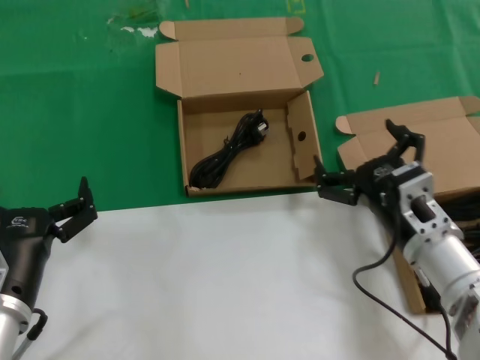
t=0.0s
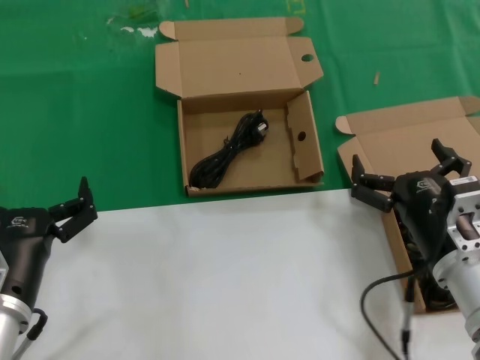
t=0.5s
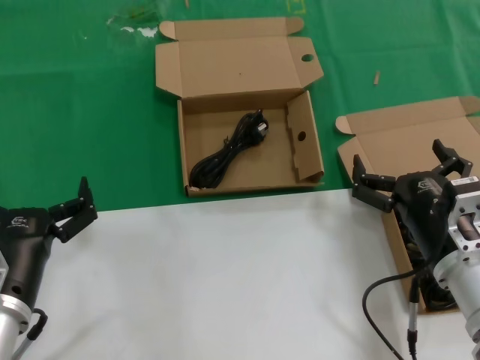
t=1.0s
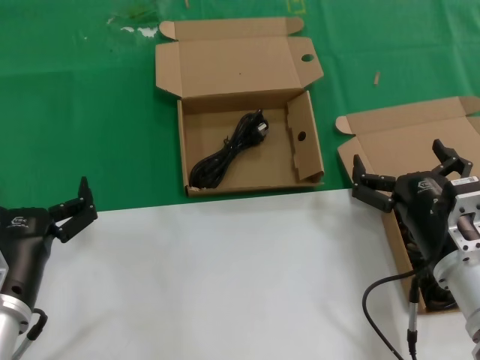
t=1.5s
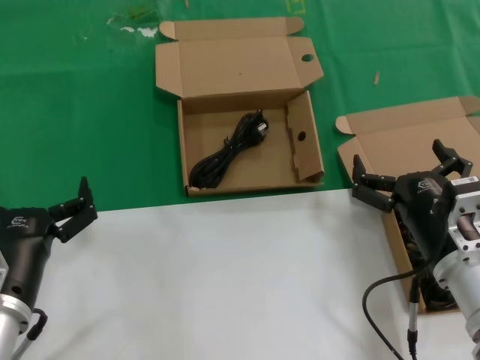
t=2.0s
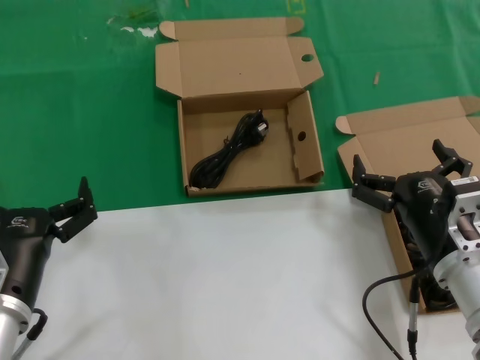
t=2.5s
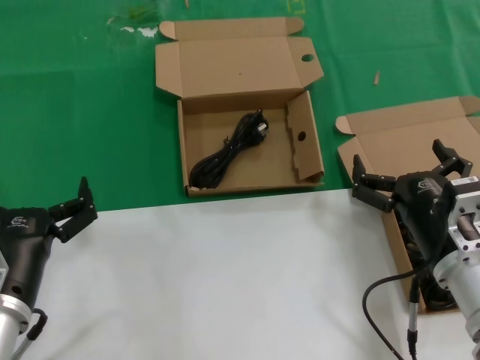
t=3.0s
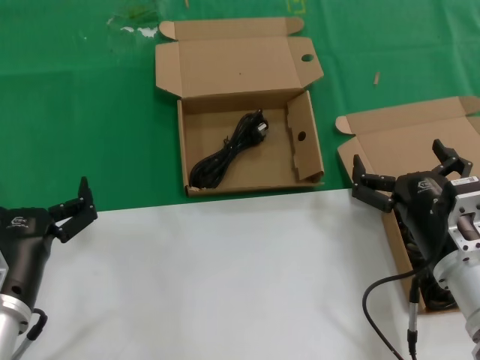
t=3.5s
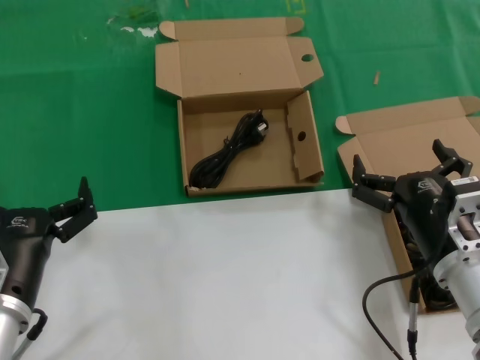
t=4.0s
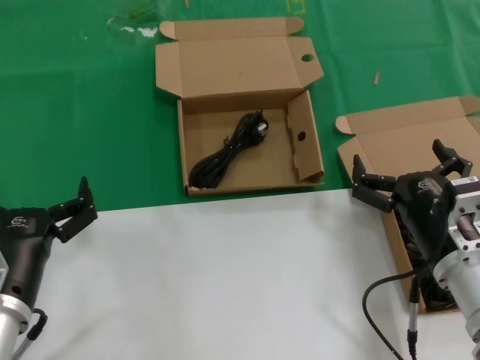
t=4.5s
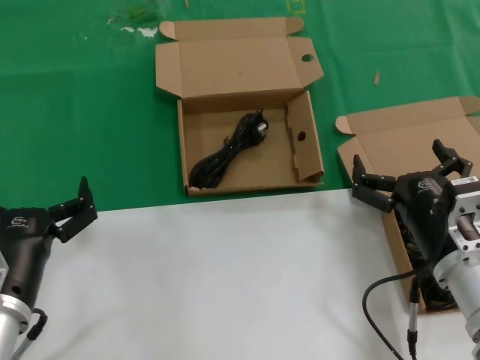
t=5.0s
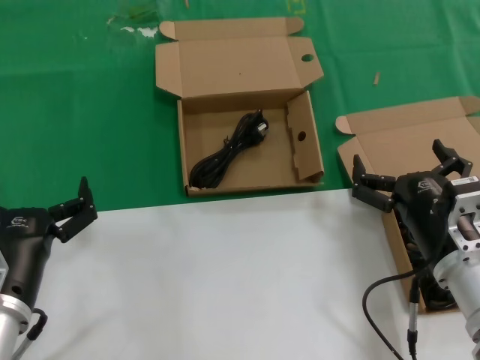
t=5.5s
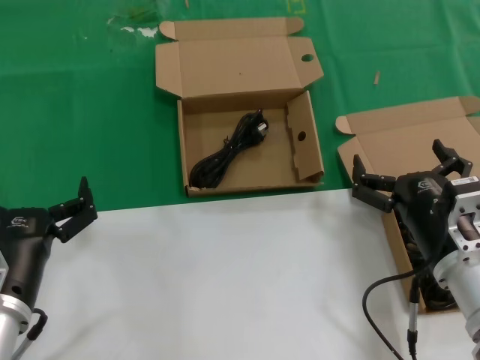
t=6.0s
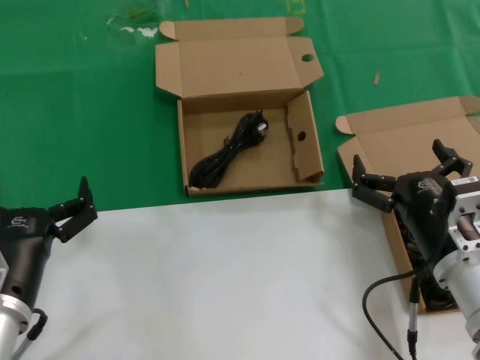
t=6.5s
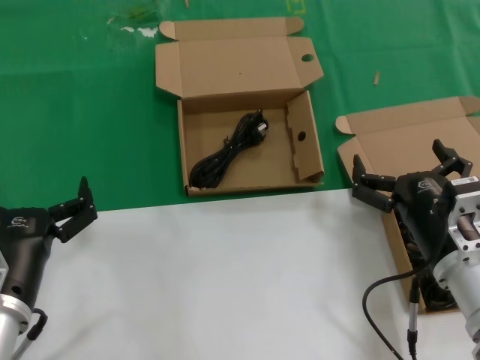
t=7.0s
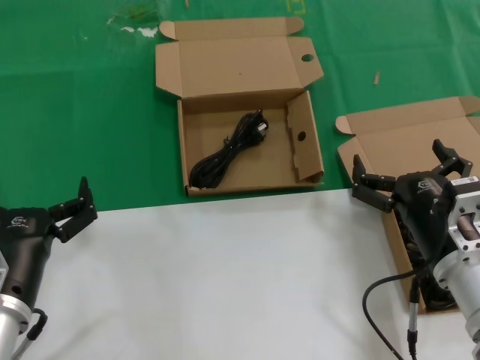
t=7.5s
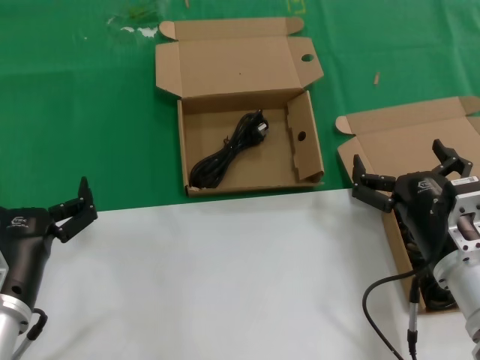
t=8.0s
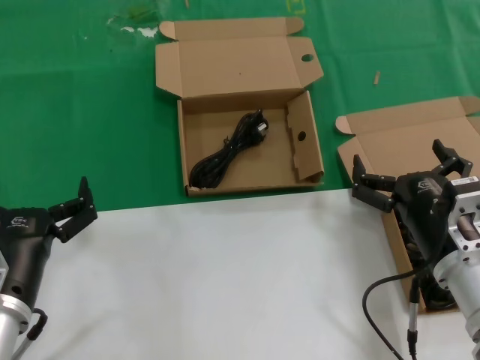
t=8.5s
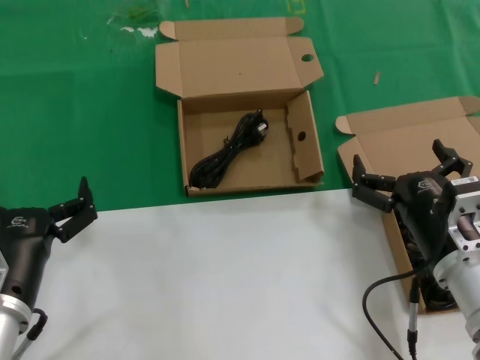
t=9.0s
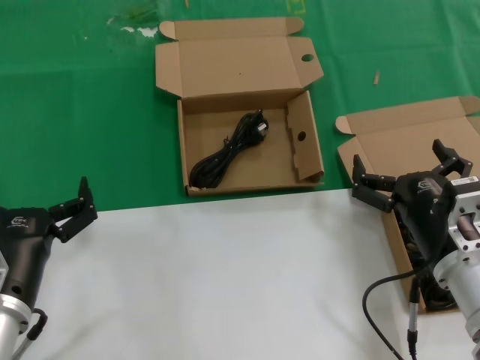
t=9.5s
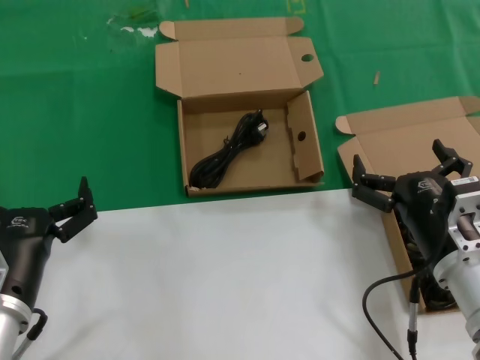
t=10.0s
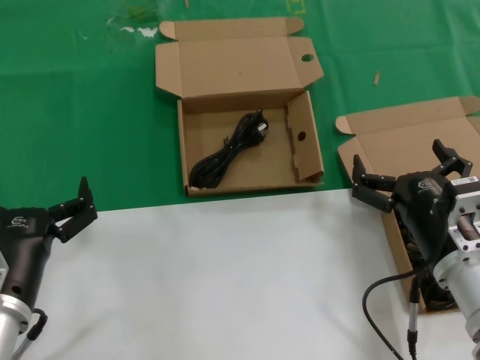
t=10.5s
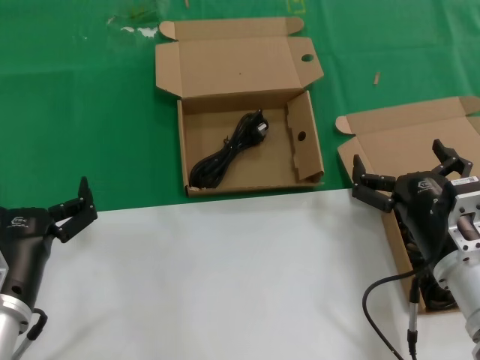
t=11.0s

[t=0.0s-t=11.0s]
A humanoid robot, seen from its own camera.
Task of the whole recording: take the parts from the box containing them and put them into an empty box.
t=0.0s to t=2.0s: There are only small adjustments of the hands.
t=2.0s to t=11.0s: Neither hand changes place.

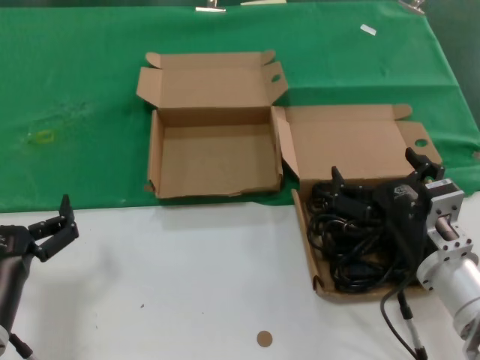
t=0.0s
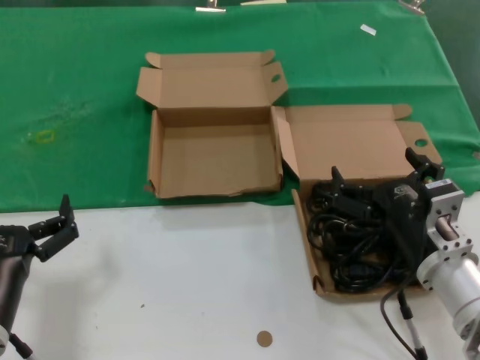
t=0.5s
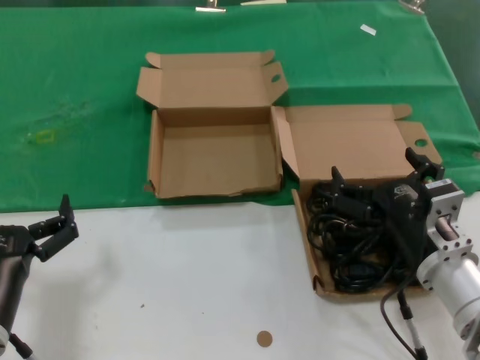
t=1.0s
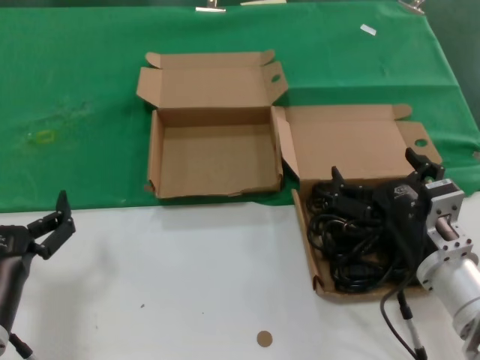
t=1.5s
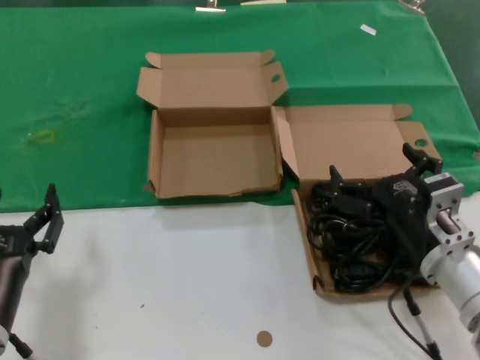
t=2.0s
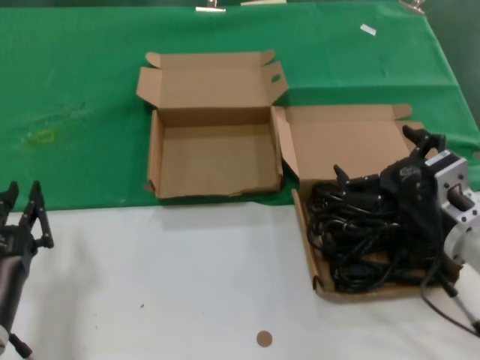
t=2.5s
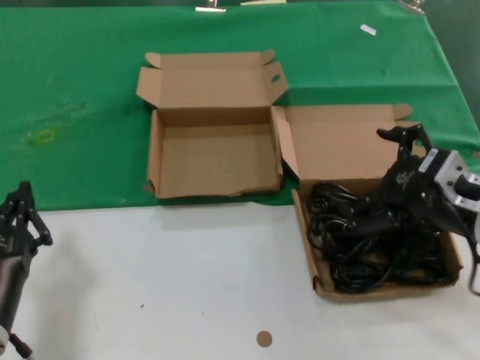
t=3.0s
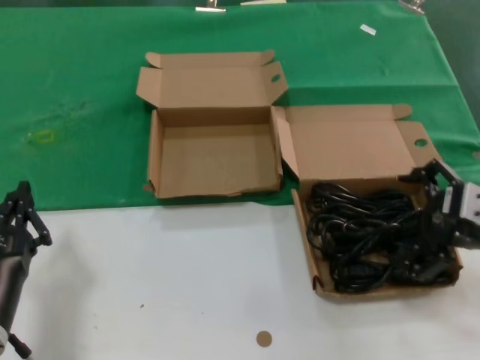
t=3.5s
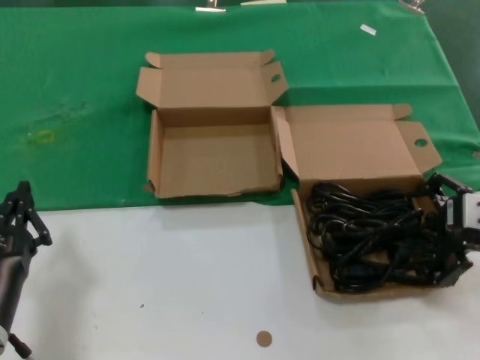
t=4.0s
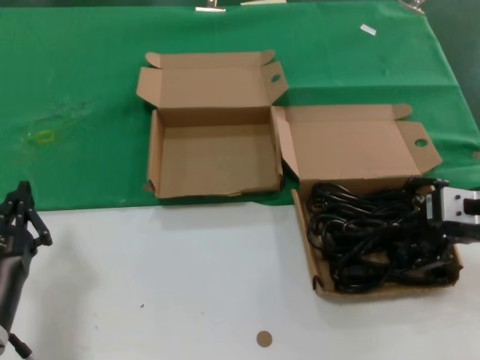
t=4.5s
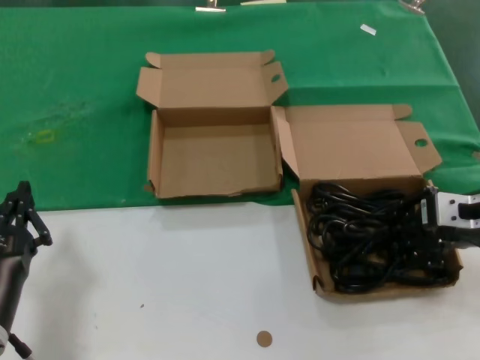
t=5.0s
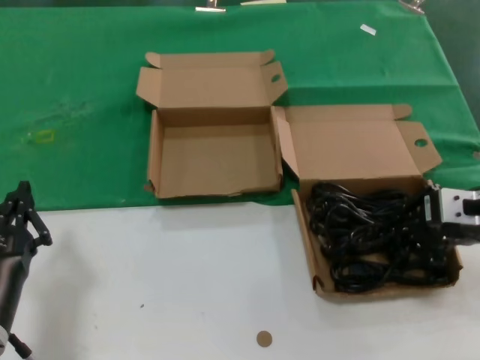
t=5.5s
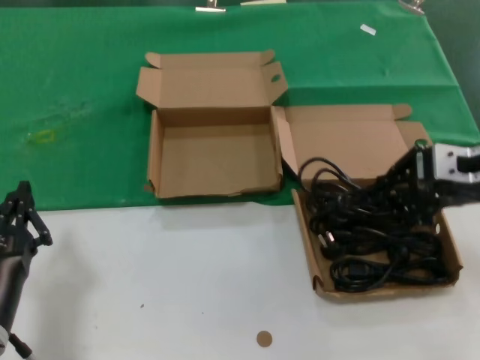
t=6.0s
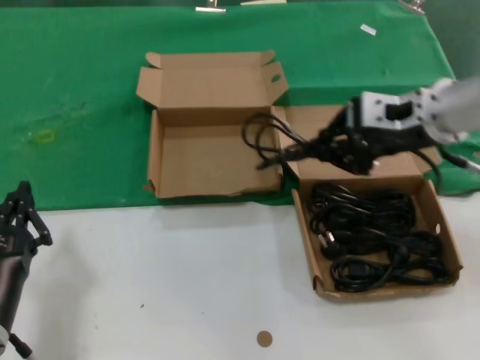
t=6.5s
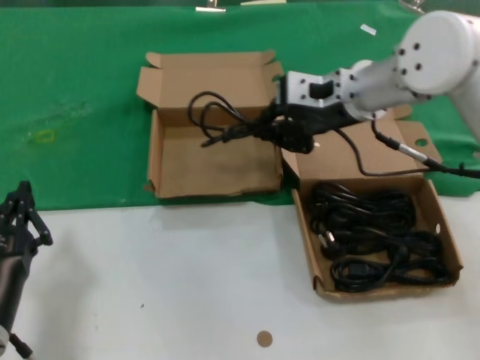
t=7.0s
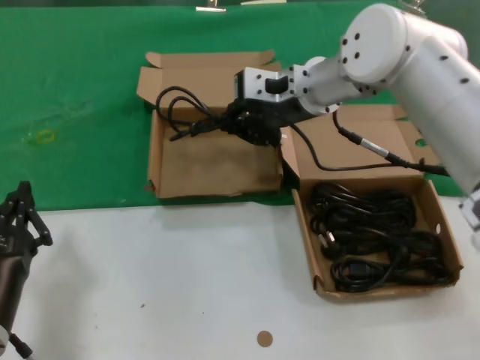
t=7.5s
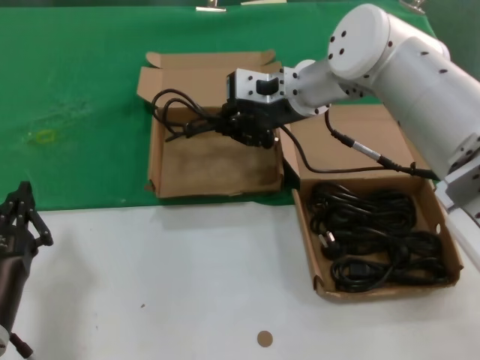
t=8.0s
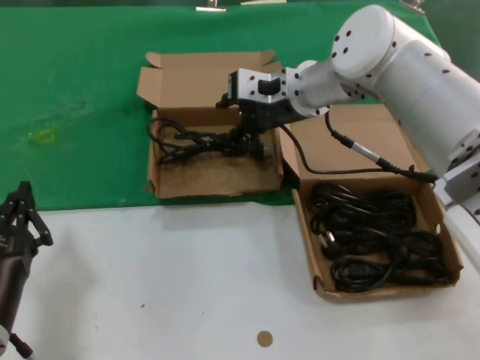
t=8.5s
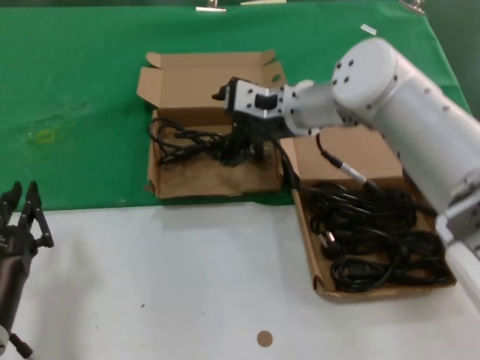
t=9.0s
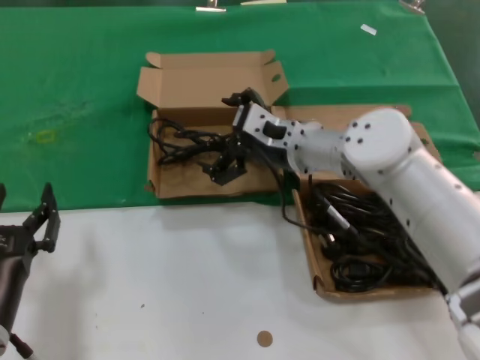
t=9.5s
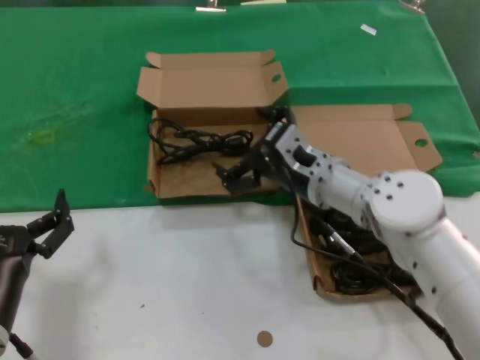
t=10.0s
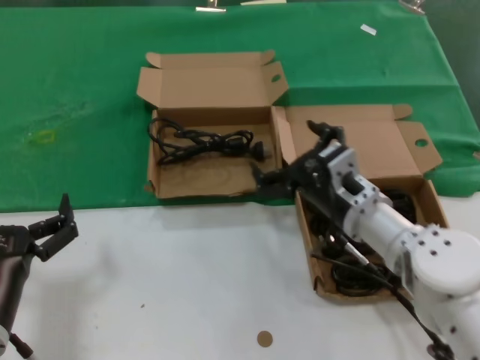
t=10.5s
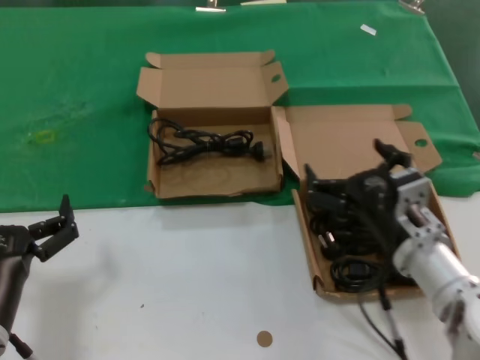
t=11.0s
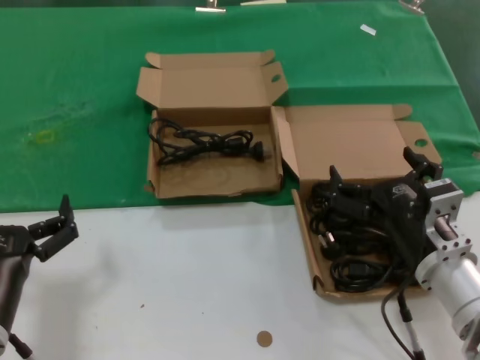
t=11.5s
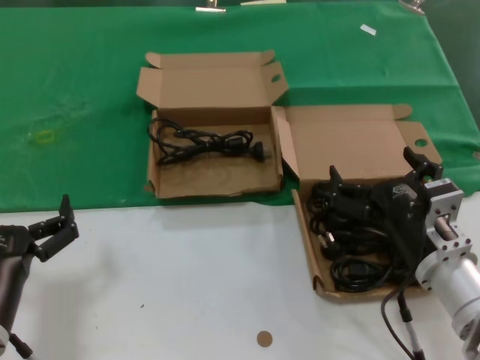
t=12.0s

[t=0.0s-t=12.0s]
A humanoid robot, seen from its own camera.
Task of the whole recording: take the parts from the box containing them and put them into an empty box.
Step, t=0.0s to t=5.0s: Grasp the data cable.
Step, t=5.5s to t=8.0s: Place the data cable in the another box.
t=0.0s to t=2.0s: Neither hand changes place.
t=2.0s to t=4.0s: The right hand moves upward and to the right, roughly 15 cm.
t=4.0s to t=6.0s: The right hand shifts some 5 cm upward.
t=6.0s to t=8.0s: The right hand shifts roughly 25 cm to the left and forward.
t=8.0s to t=10.0s: The right hand heads downward and backward, covering about 15 cm.
t=10.0s to t=12.0s: The right hand goes approximately 20 cm backward and to the right.

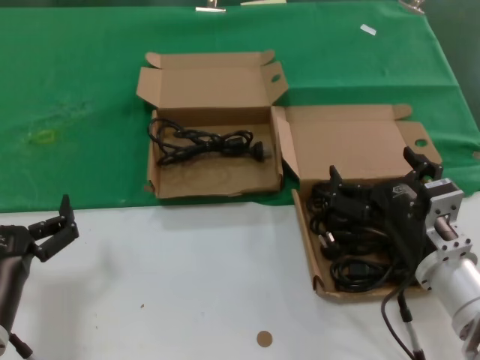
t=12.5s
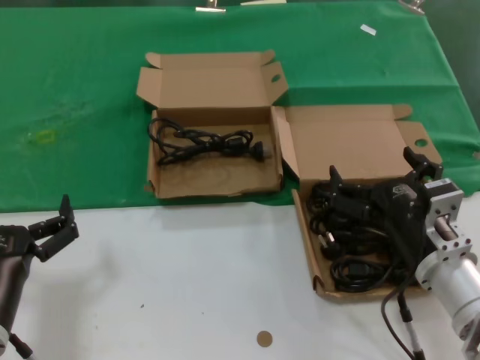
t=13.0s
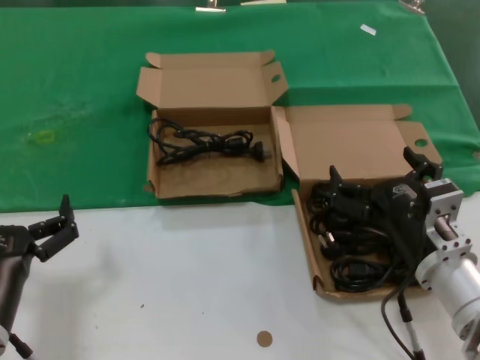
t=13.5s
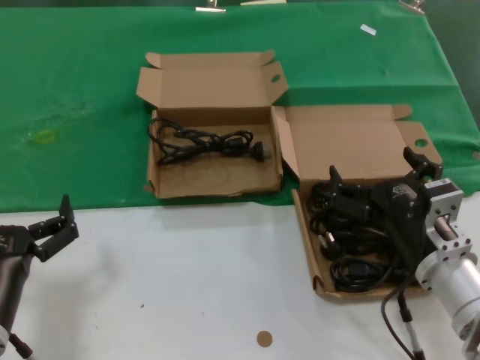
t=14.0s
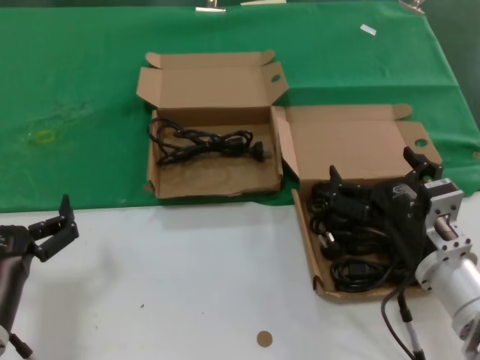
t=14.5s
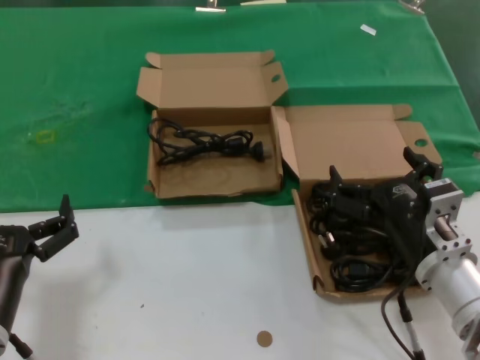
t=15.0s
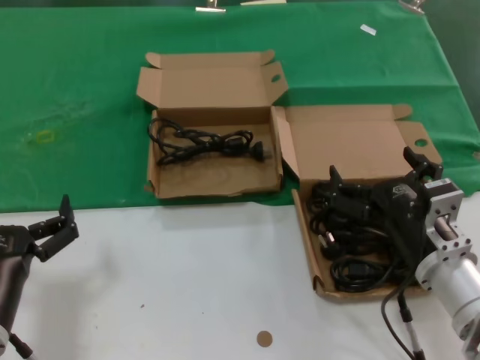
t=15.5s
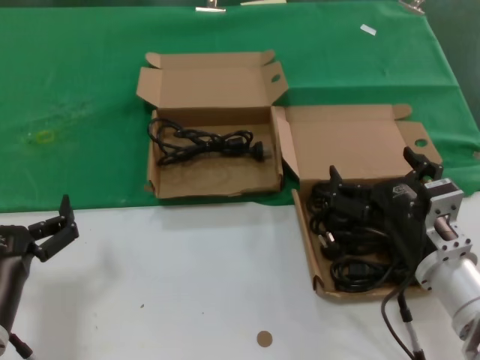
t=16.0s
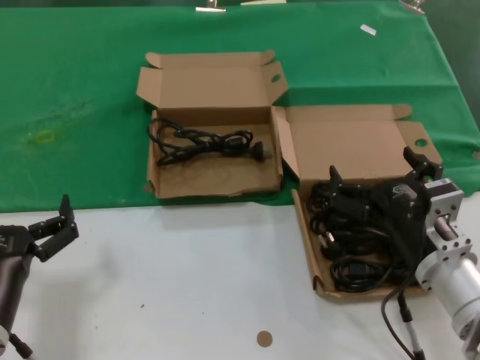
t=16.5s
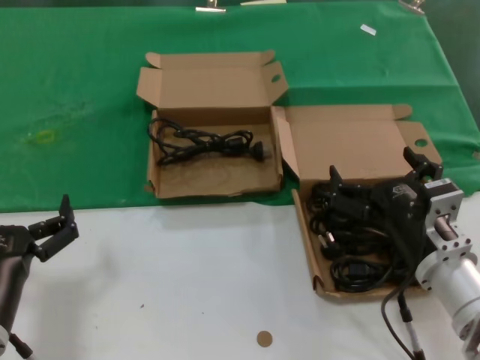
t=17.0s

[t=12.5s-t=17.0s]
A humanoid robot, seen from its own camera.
Task of the whole recording: take the parts from the box containing them and put them into an empty box.
t=12.5s to t=17.0s: Neither hand changes place.
